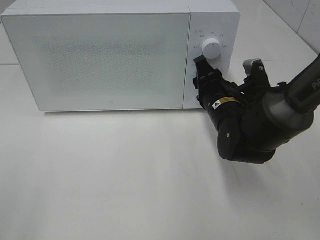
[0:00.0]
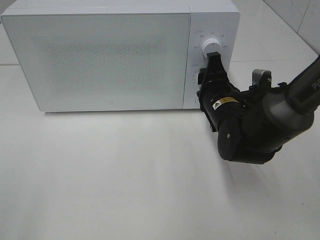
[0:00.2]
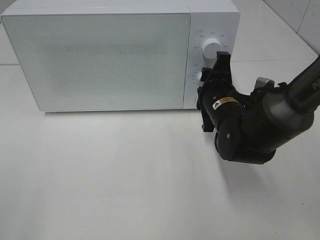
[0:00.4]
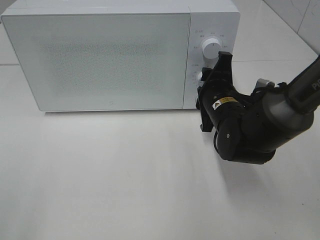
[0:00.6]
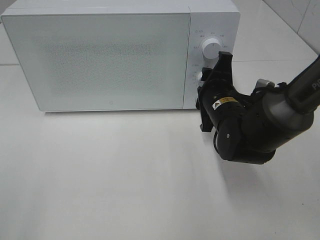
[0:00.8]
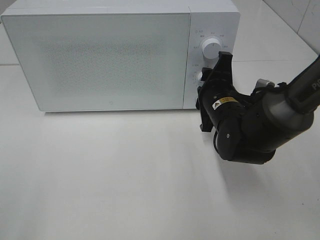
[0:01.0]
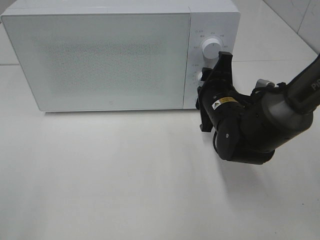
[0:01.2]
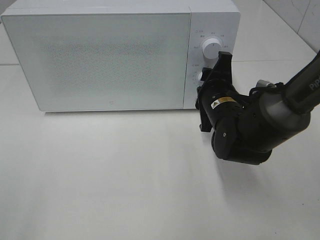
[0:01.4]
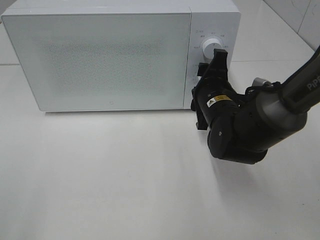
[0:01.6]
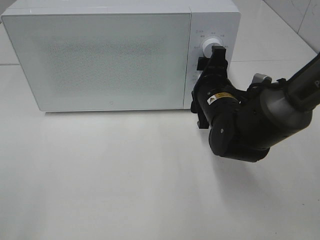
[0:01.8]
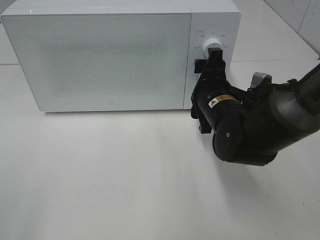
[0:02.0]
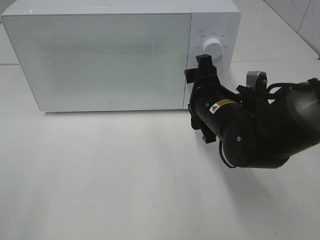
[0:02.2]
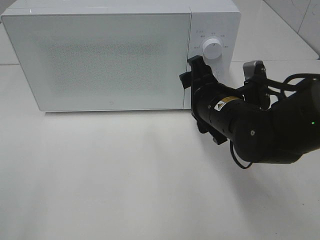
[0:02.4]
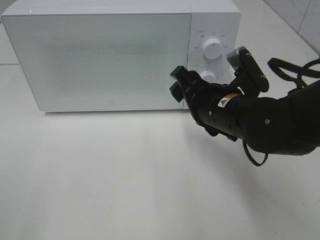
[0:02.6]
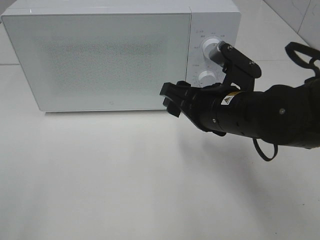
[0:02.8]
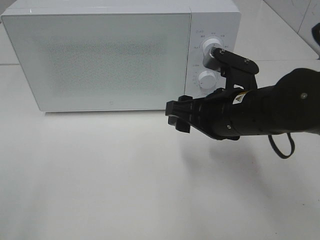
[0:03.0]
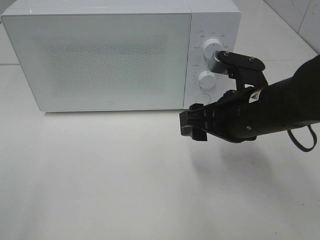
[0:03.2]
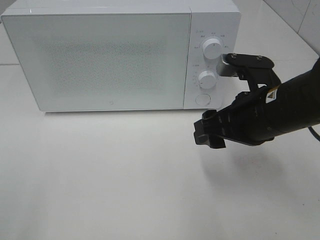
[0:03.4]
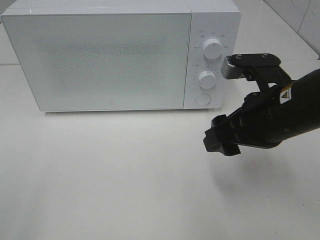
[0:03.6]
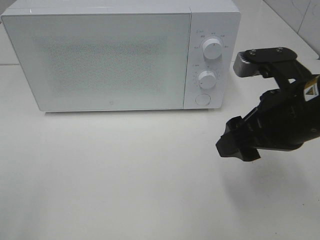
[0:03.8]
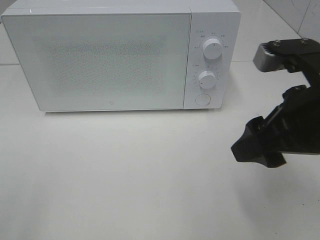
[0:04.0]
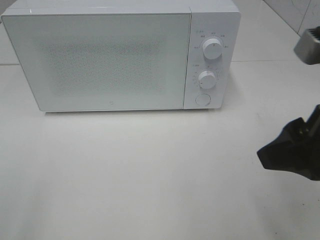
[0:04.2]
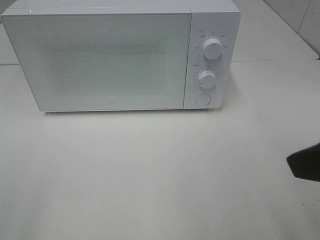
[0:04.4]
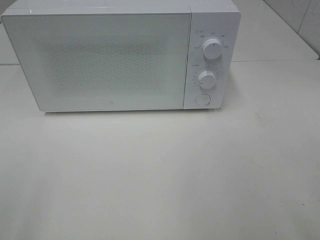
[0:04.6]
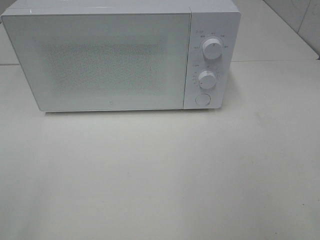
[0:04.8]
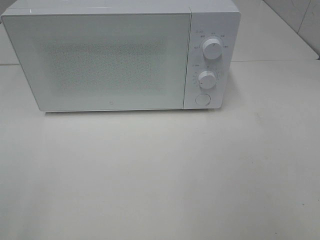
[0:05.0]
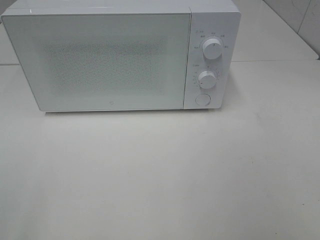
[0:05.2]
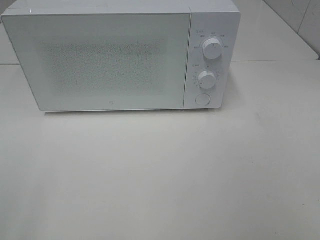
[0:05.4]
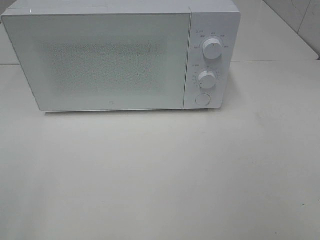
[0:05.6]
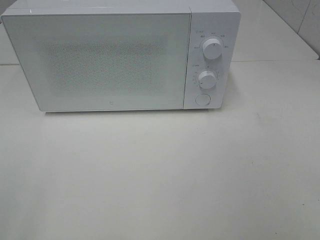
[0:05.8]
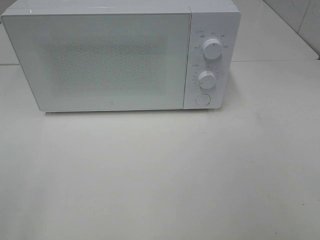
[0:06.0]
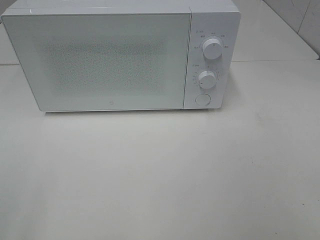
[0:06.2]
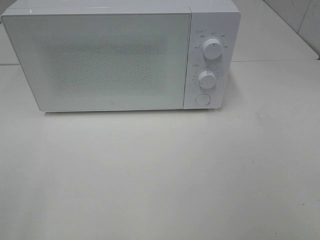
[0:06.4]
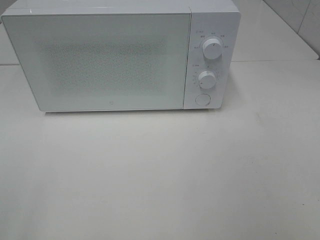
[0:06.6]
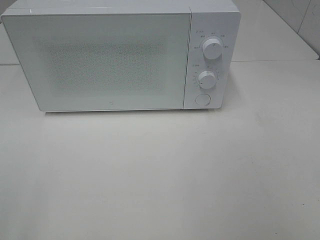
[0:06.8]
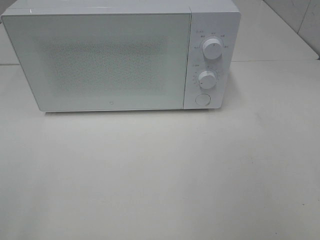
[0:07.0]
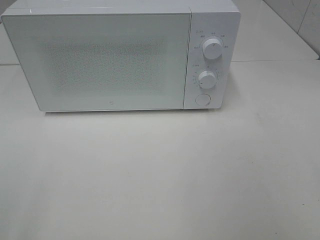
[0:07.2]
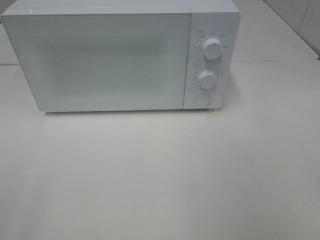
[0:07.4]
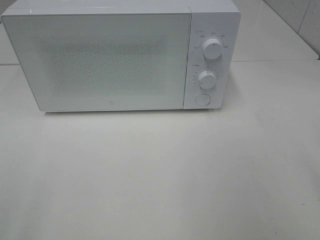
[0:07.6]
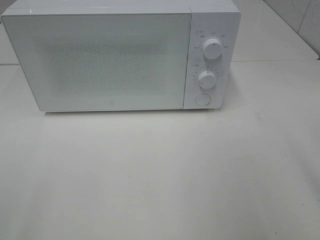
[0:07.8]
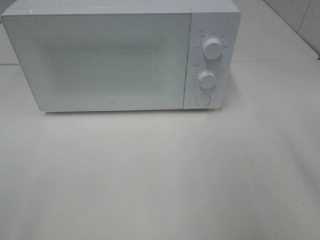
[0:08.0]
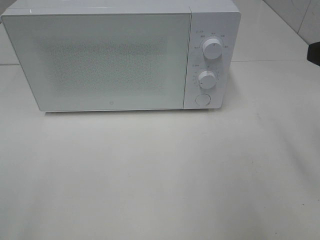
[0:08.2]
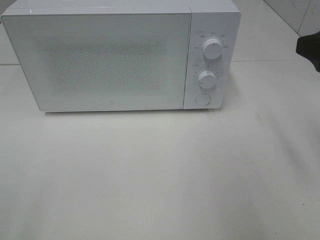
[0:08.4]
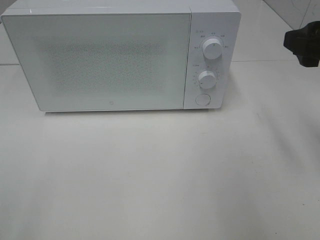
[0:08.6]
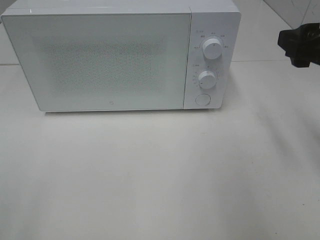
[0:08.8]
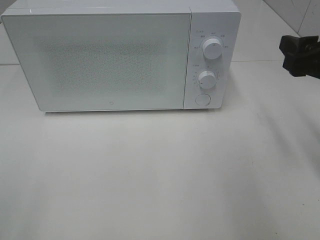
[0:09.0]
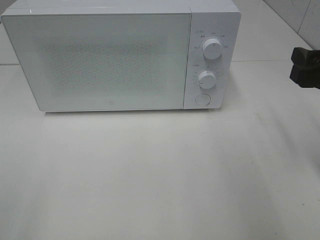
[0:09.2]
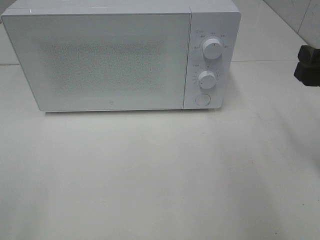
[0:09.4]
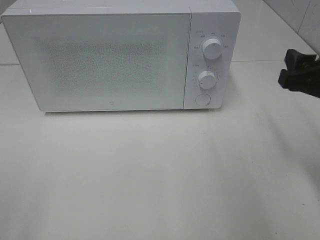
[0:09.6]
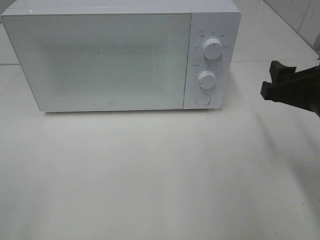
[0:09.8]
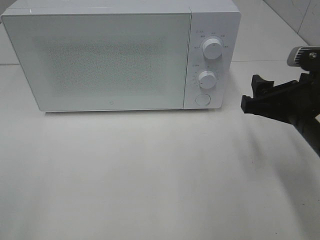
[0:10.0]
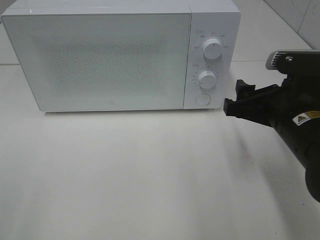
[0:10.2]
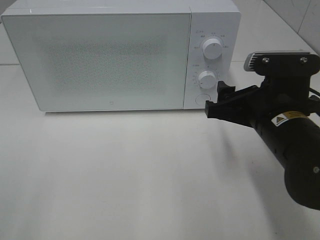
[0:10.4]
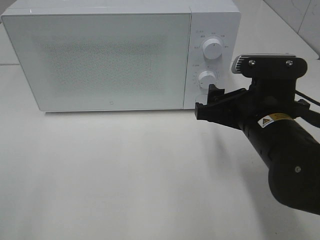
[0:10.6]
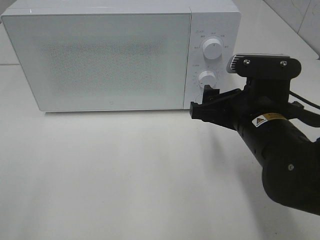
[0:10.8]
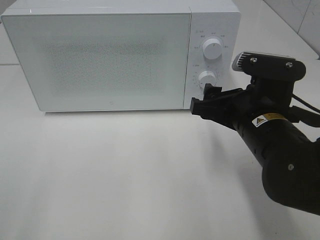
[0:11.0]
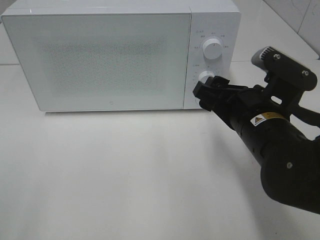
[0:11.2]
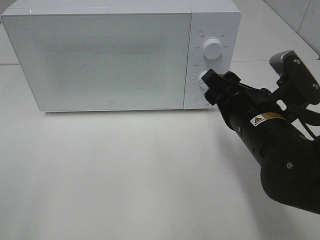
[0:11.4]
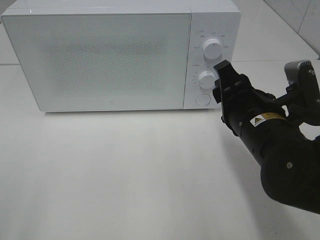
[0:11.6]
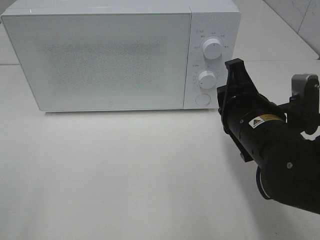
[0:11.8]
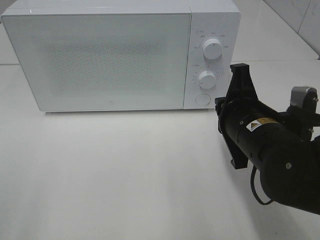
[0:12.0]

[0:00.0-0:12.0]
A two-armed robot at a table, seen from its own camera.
Task of the whole recording: Heat the burger.
0:01.6 to 0:03.0: The right gripper heads backward and upward, covering roughly 10 cm.
0:03.0 to 0:04.4: The right gripper is displaced backward, upward and to the right by approximately 20 cm.
0:04.4 to 0:06.0: The right gripper heads backward and to the right, covering roughly 15 cm.
0:07.6 to 0:09.0: The right gripper travels forward and downward by some 15 cm.
0:09.0 to 0:10.4: The right gripper moves to the left and downward, some 10 cm.
0:10.4 to 0:12.0: The right gripper closes up.

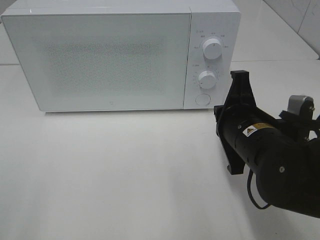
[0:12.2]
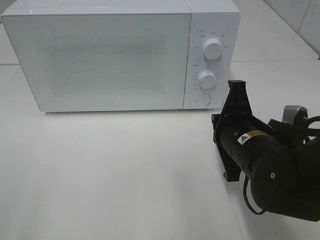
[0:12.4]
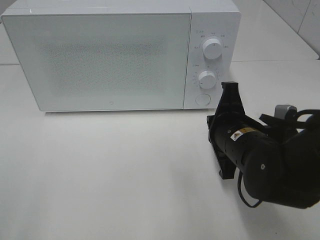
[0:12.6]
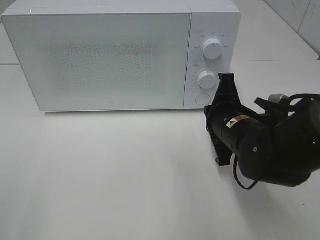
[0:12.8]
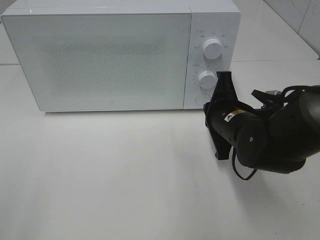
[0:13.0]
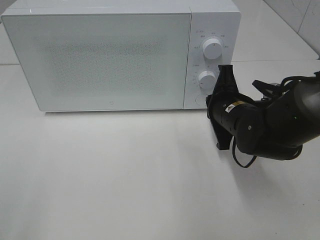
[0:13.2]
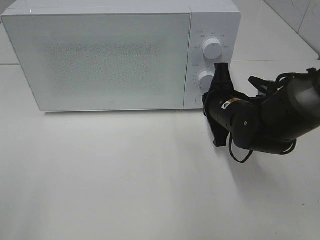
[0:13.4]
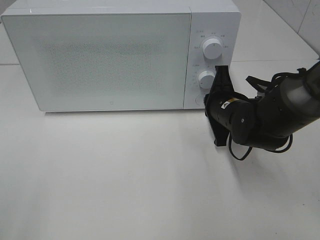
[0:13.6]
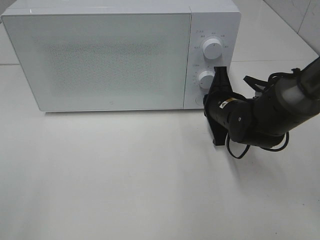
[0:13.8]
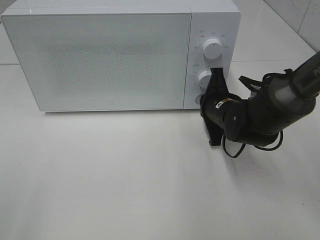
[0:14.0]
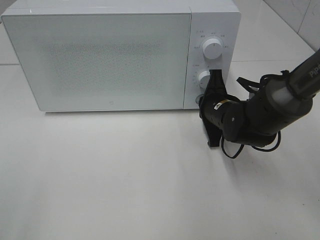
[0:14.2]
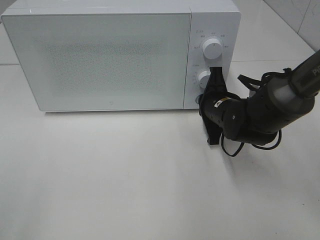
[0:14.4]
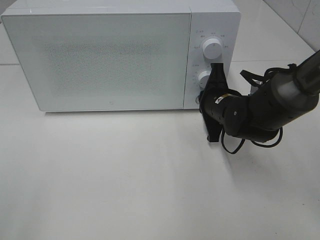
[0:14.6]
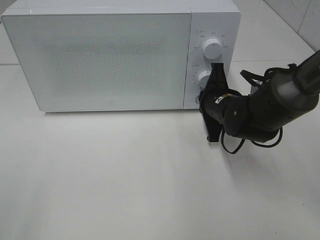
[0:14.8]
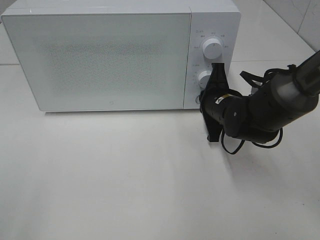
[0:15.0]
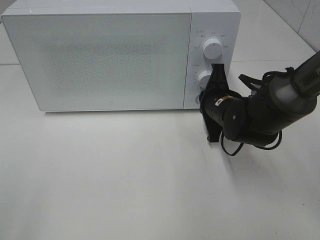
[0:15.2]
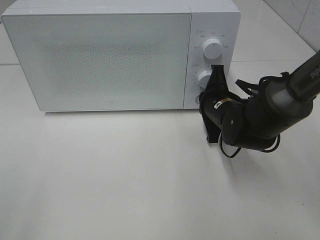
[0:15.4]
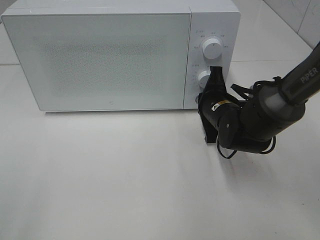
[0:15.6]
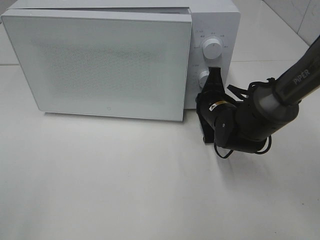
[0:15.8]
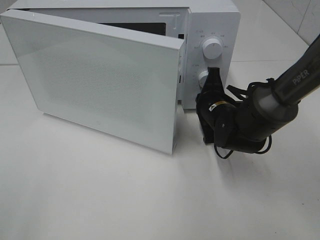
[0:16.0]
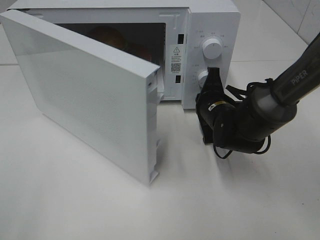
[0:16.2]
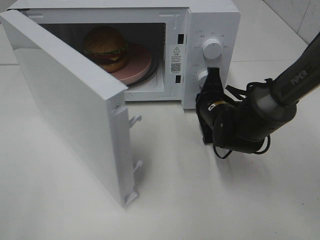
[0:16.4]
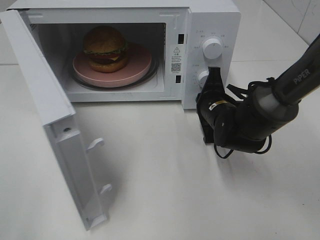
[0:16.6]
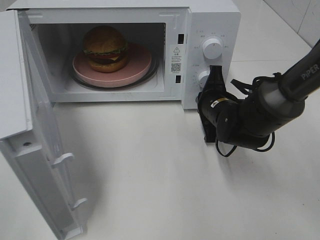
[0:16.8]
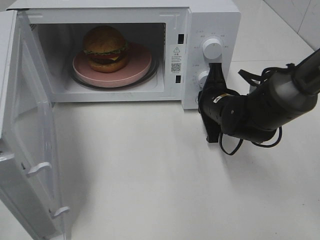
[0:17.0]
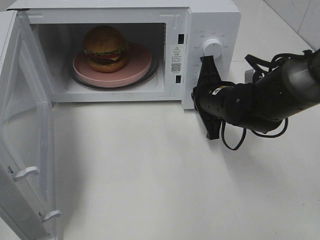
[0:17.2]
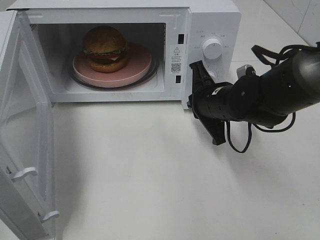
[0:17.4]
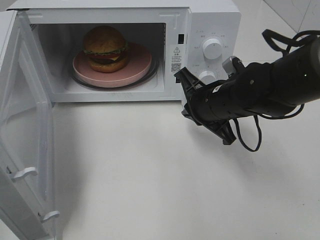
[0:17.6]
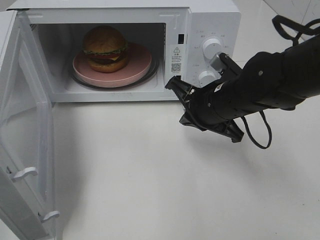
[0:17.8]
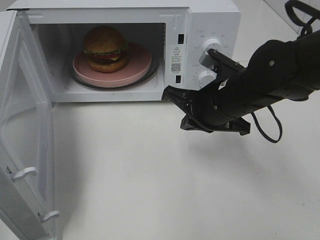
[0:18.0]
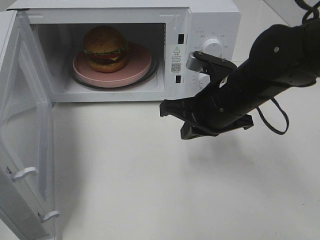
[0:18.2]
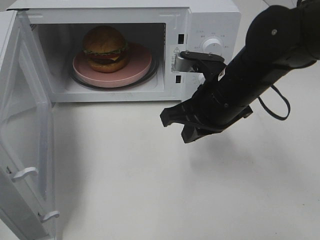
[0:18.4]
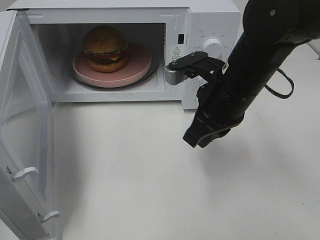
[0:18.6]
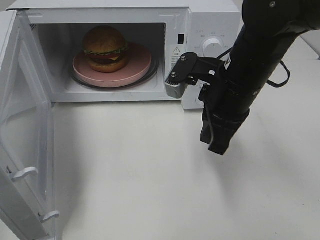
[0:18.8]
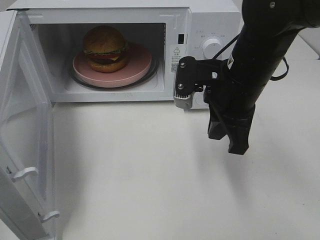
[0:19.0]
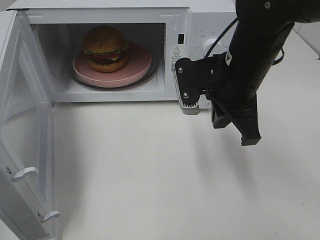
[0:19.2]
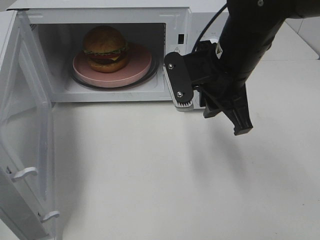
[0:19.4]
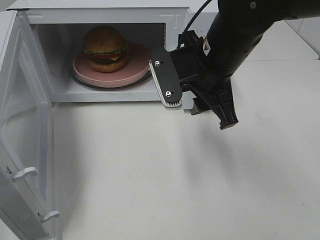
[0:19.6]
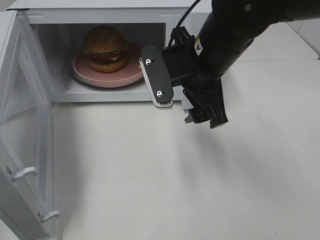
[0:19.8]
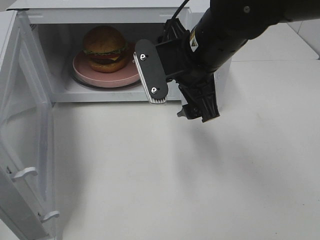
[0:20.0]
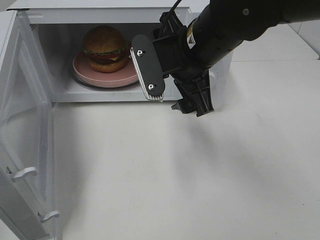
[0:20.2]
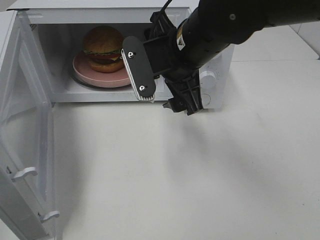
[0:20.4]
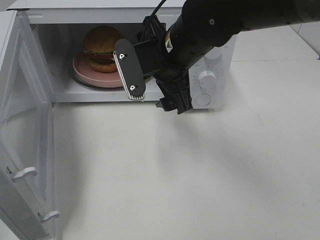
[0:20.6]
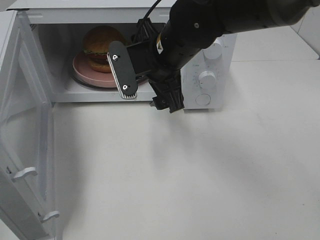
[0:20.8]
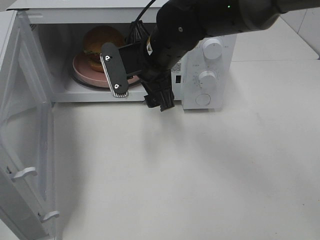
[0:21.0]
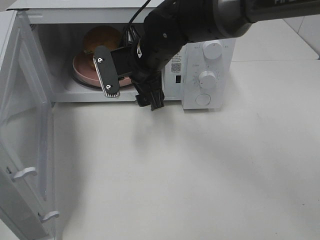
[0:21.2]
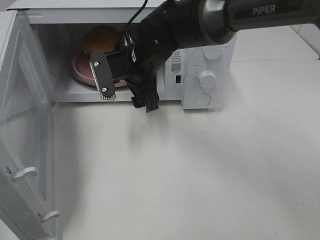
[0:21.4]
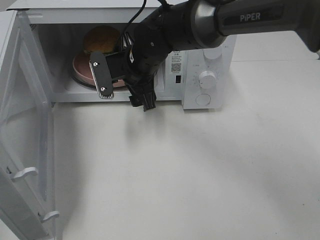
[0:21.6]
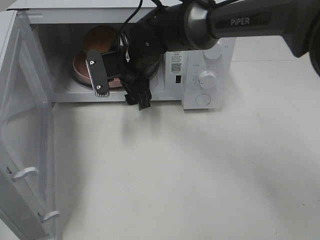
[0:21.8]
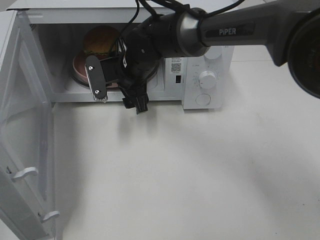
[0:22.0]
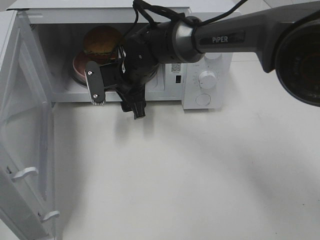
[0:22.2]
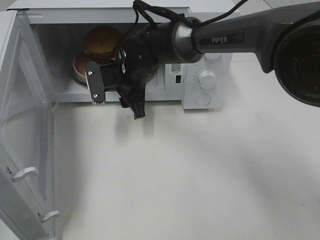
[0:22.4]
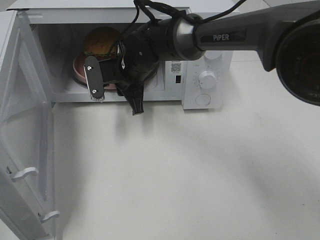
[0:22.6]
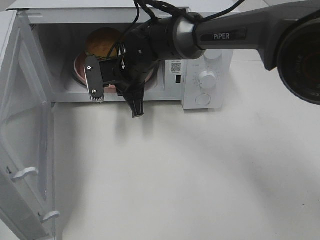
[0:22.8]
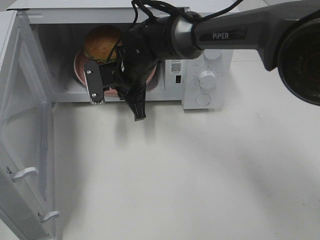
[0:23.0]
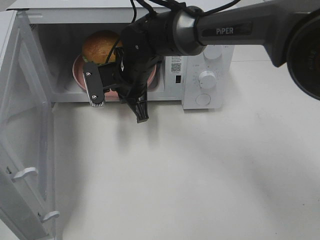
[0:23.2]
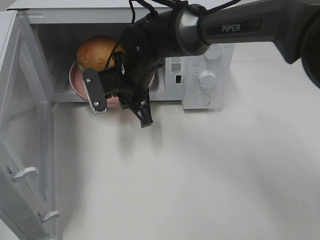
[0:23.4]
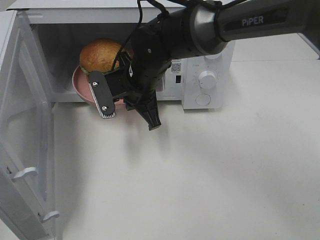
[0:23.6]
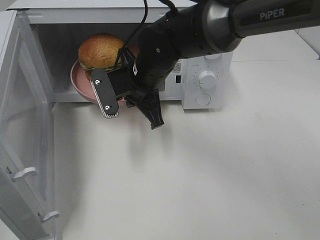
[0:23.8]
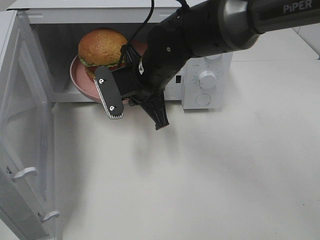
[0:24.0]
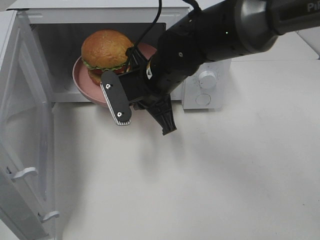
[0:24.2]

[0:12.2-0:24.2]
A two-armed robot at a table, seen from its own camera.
Task of the whole recording: Heat the burger.
Step, 0:12.2 to 0:17.2: Right hand: press the switch.
Step, 0:17.4 to 0:22.8: Right hand: grab the plate with the hamburger.
0:12.2 to 0:13.8: The right gripper shifts about 15 cm forward and downward.
0:13.8 to 0:15.2: Neither gripper changes place.
0:16.6 to 0:18.2: The right gripper moves upward and backward, about 10 cm.
0:18.2 to 0:19.8: The right gripper goes approximately 5 cm upward, and opens.
0:19.8 to 0:21.2: The right gripper shifts approximately 10 cm to the left and forward.
0:21.2 to 0:22.6: The right gripper shifts about 5 cm downward, and closes its fingers.
0:22.6 to 0:24.2: The right gripper travels backward and to the right by about 10 cm.
